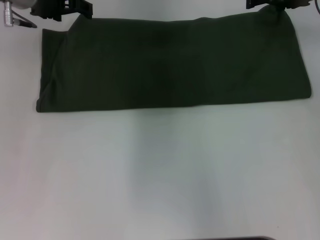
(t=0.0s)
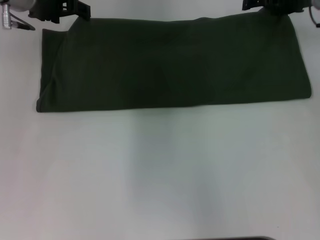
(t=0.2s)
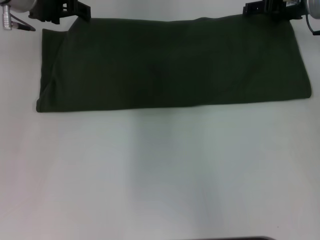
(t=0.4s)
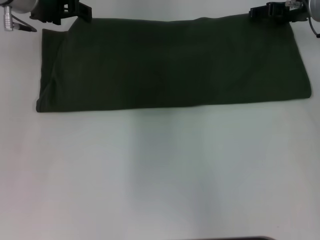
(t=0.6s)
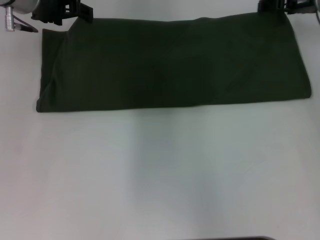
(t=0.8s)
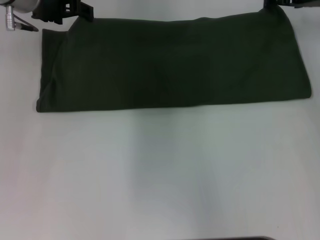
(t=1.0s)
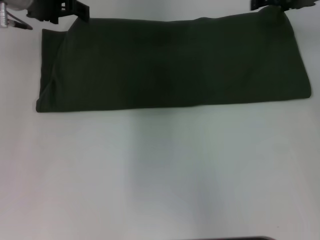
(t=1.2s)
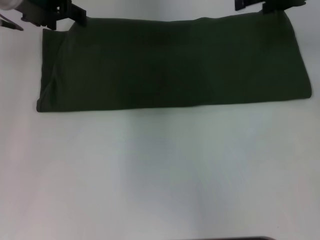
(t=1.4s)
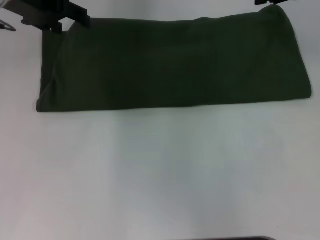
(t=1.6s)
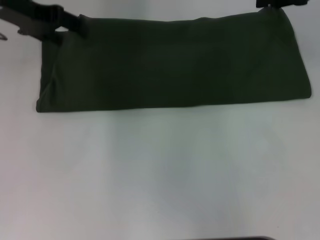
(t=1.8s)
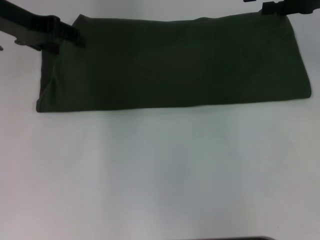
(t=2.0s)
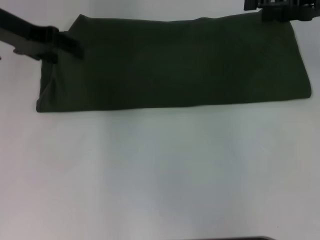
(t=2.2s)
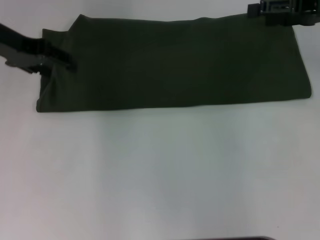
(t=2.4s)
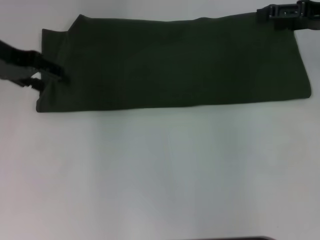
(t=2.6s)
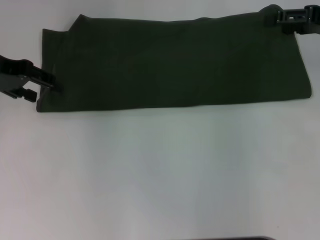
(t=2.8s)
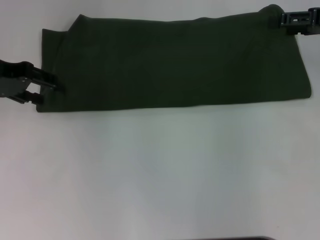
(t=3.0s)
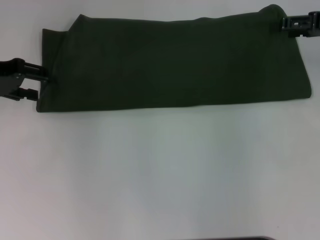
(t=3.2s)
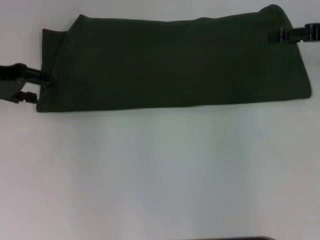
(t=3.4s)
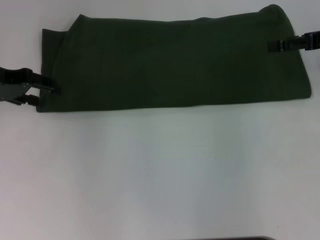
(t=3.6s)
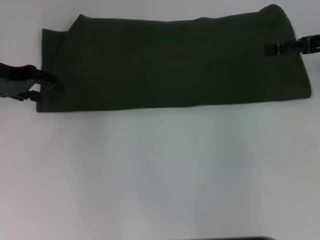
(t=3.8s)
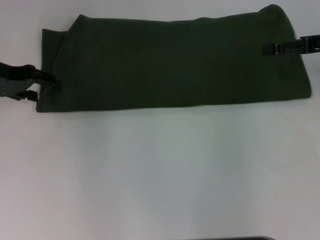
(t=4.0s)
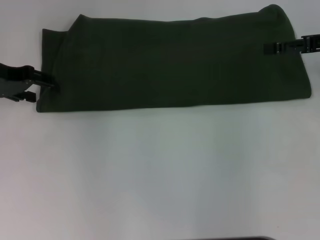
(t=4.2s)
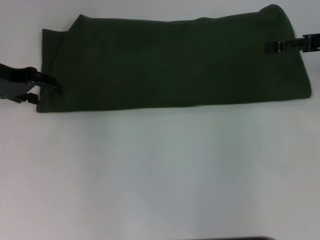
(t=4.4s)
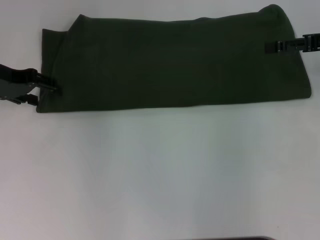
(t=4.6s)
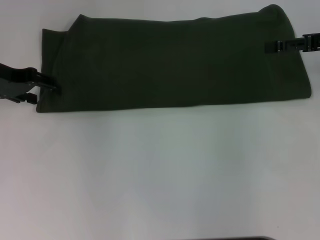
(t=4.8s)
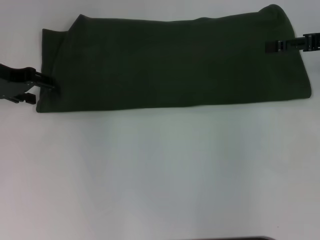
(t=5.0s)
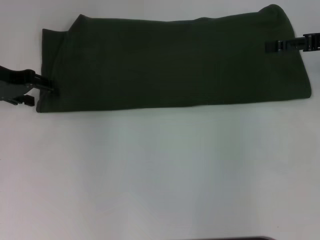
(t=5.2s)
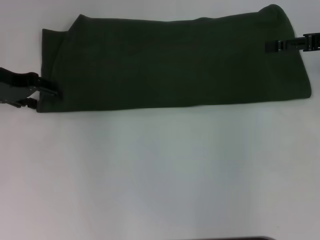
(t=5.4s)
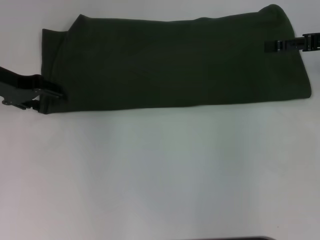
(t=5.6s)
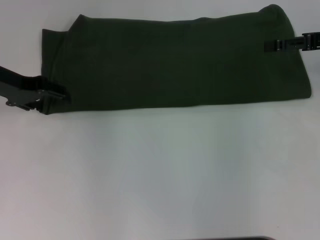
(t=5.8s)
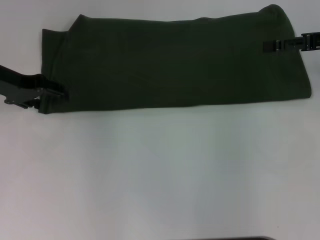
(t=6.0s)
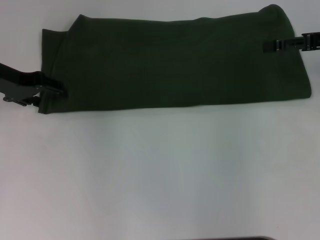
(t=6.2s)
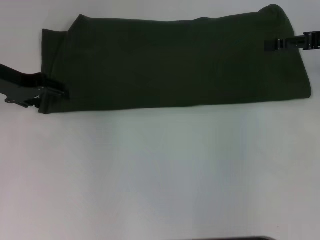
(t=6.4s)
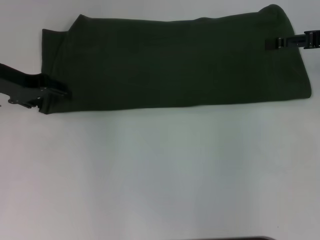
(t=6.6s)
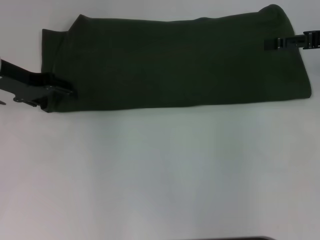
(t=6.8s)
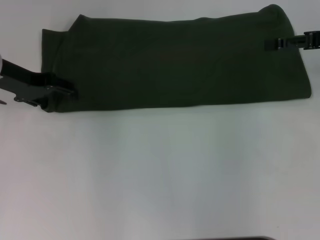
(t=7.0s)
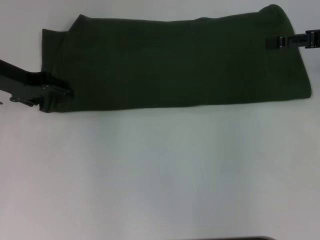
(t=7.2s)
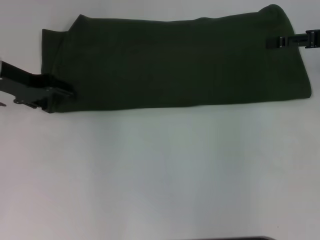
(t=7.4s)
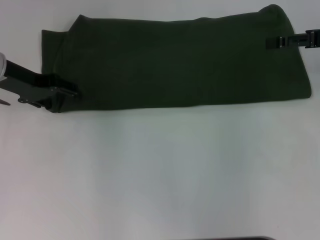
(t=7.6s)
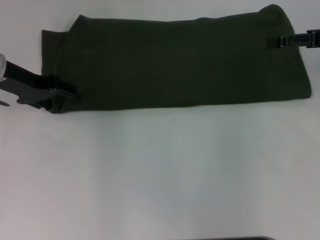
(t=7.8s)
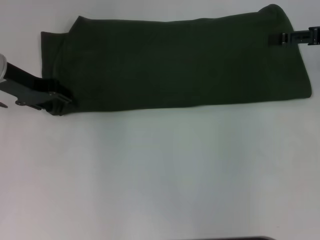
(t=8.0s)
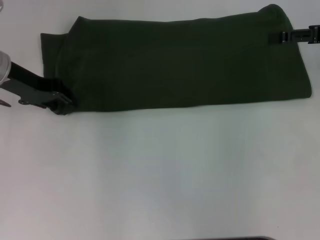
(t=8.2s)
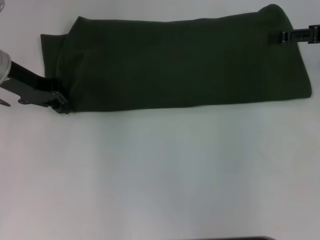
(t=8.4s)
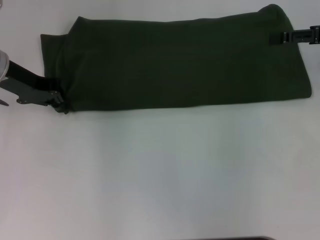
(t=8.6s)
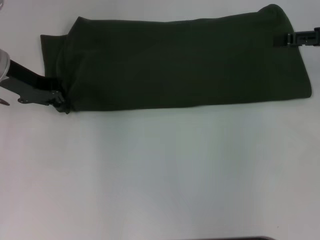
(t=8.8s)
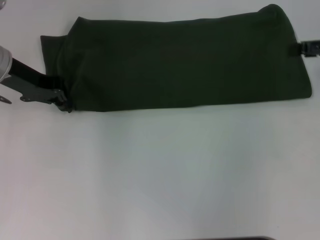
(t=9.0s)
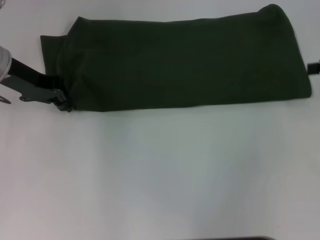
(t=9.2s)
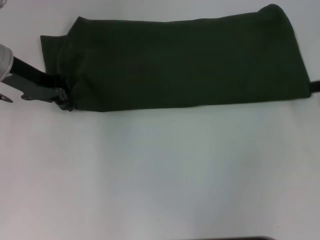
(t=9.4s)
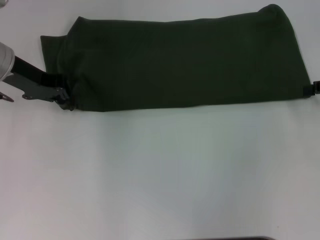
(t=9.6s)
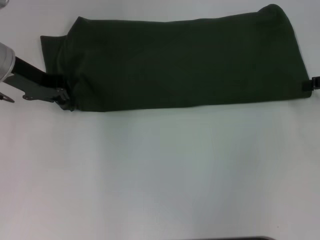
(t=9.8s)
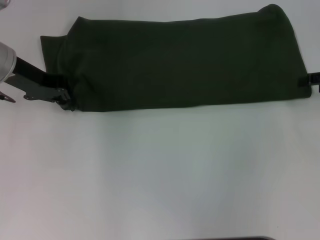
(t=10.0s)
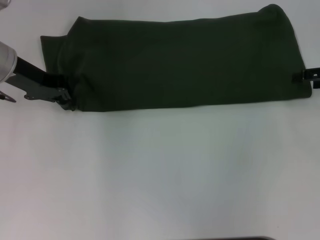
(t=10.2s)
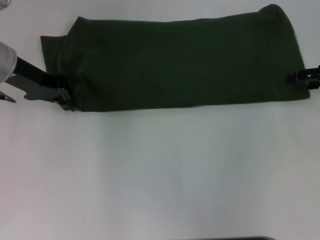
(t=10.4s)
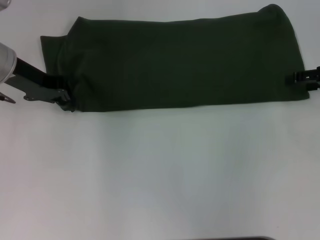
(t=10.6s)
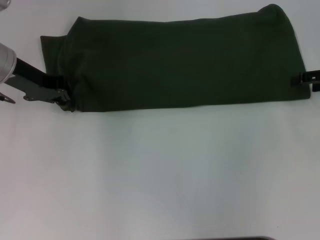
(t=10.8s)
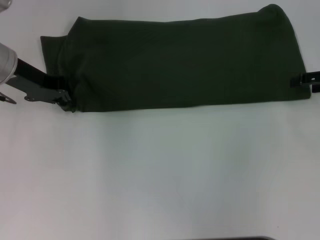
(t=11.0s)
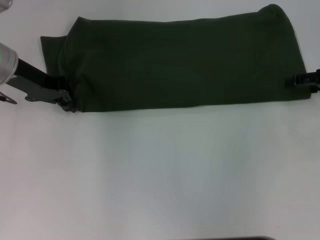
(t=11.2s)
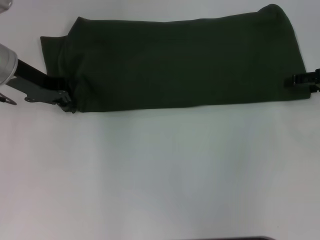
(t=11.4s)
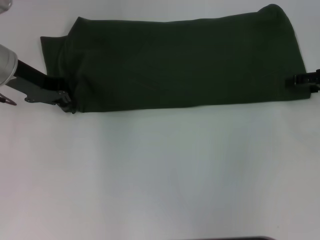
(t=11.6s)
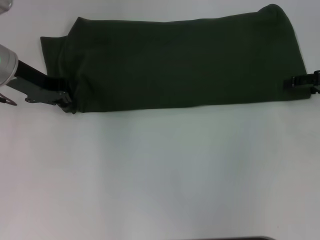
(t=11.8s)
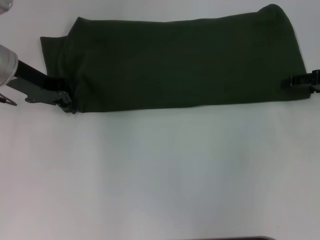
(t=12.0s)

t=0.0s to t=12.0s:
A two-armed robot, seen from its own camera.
t=0.0s to t=1.6s: The right gripper goes roughly 5 cm upward.
t=1.6s to t=3.0s: The right gripper goes some 5 cm to the right, while the left gripper is displaced to the left and backward by approximately 10 cm.
t=3.0s to t=7.6s: The grippers stay close to where they were, moving slightly.
t=7.6s to t=9.0s: The left gripper closes its fingers.
t=9.0s to t=10.4s: There are only small adjustments of the grippers.
t=10.4s to t=12.0s: The two grippers keep their place.

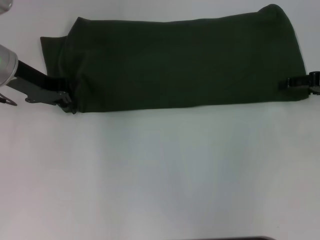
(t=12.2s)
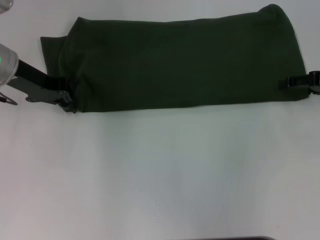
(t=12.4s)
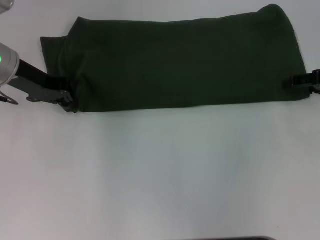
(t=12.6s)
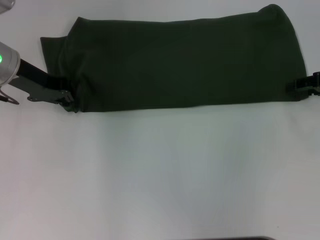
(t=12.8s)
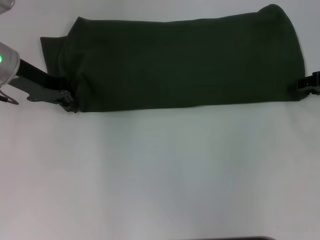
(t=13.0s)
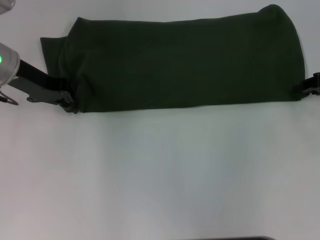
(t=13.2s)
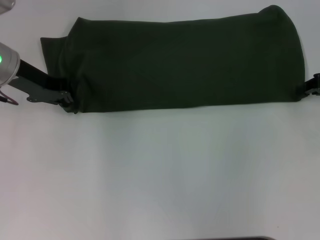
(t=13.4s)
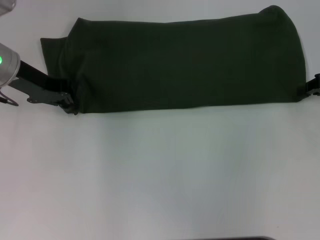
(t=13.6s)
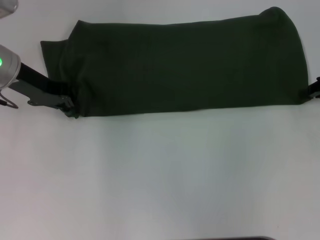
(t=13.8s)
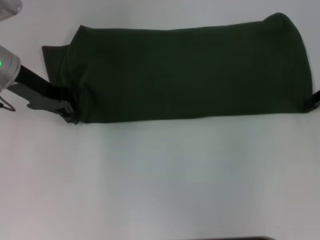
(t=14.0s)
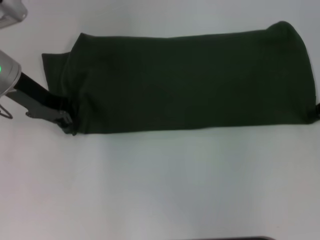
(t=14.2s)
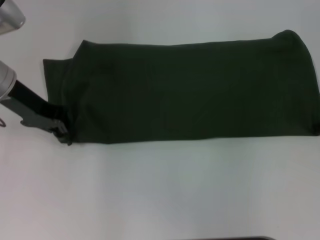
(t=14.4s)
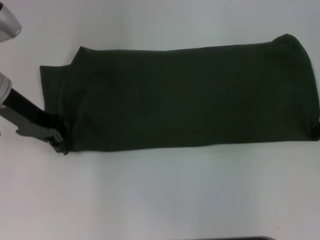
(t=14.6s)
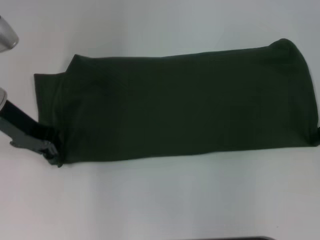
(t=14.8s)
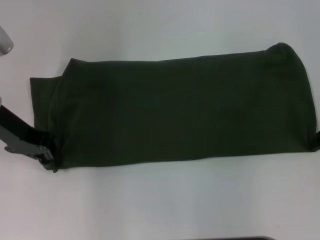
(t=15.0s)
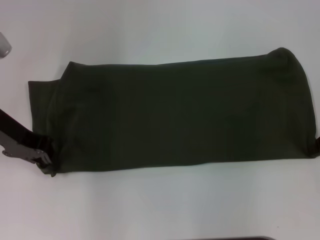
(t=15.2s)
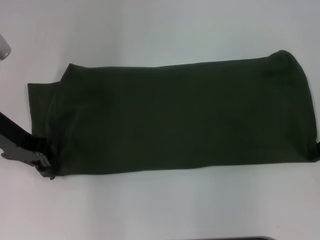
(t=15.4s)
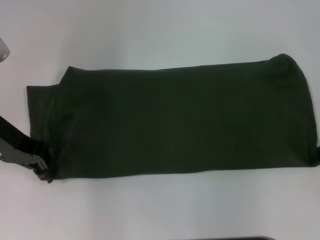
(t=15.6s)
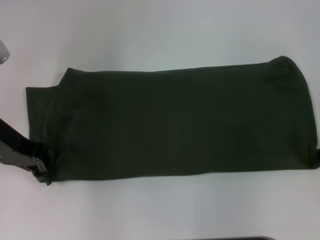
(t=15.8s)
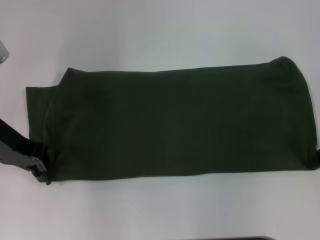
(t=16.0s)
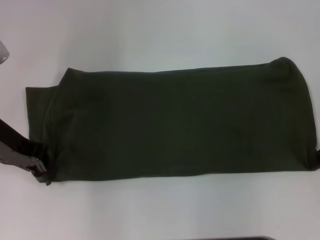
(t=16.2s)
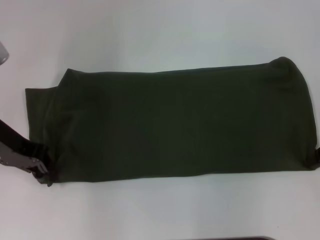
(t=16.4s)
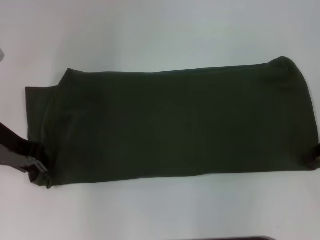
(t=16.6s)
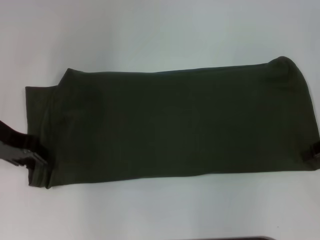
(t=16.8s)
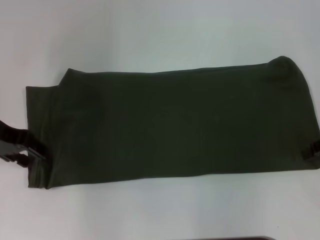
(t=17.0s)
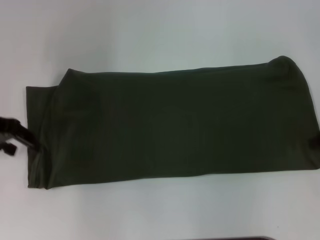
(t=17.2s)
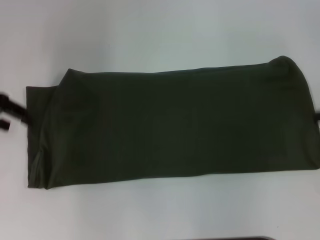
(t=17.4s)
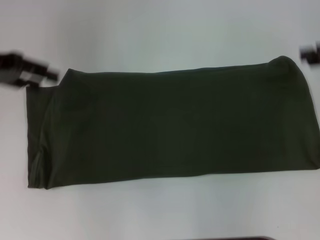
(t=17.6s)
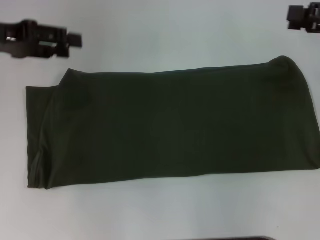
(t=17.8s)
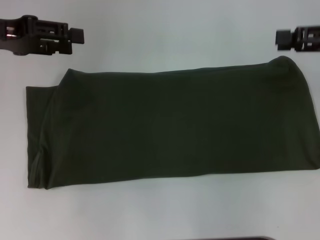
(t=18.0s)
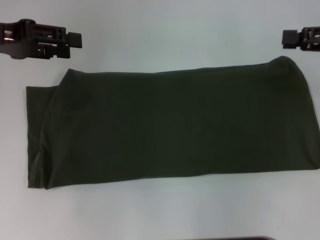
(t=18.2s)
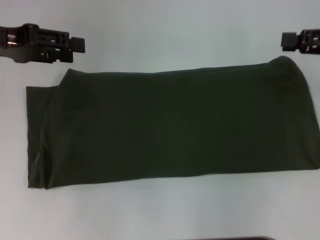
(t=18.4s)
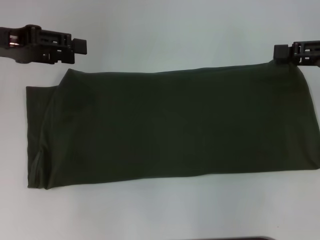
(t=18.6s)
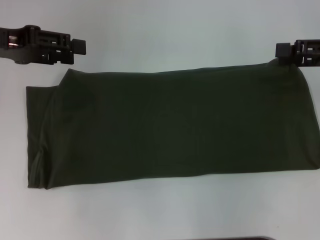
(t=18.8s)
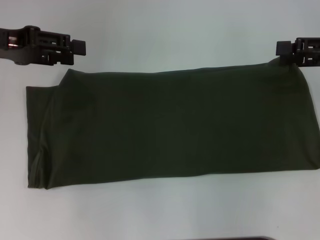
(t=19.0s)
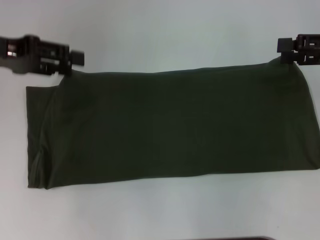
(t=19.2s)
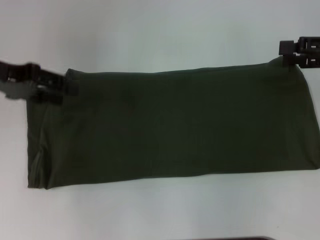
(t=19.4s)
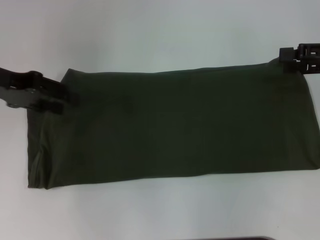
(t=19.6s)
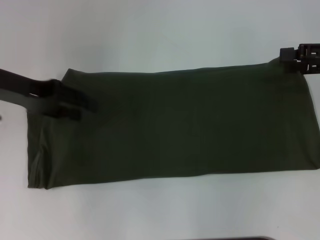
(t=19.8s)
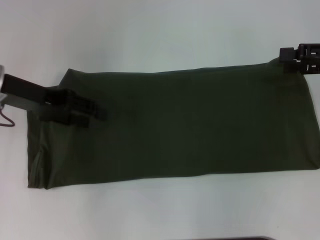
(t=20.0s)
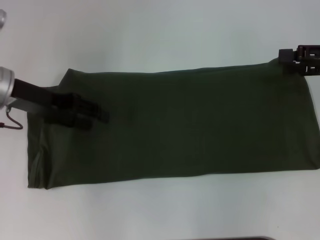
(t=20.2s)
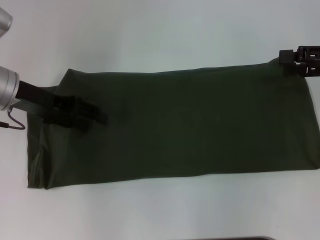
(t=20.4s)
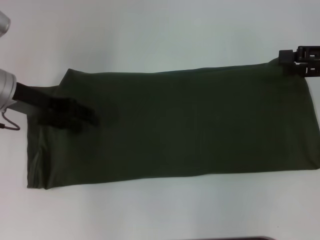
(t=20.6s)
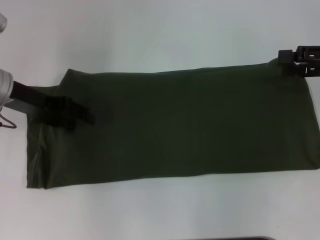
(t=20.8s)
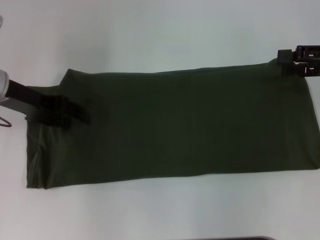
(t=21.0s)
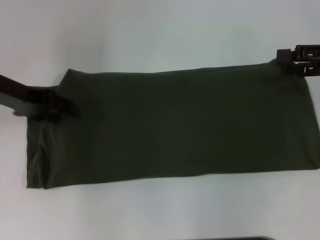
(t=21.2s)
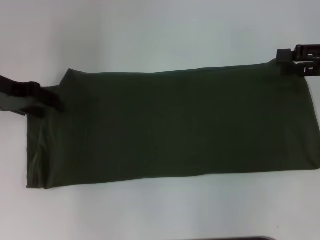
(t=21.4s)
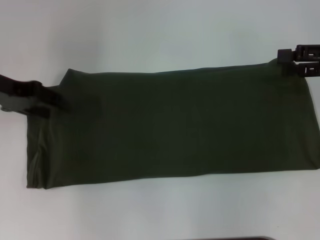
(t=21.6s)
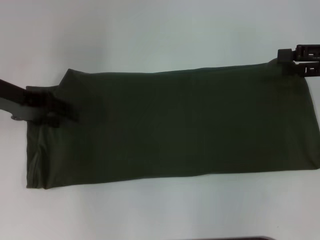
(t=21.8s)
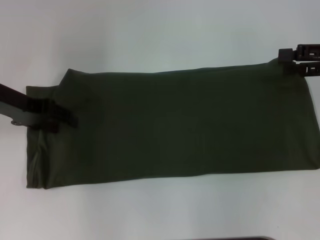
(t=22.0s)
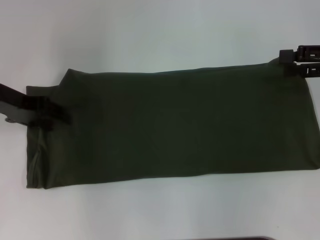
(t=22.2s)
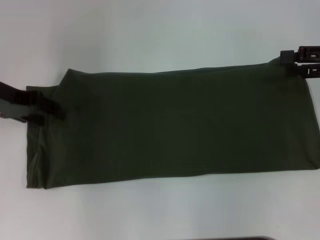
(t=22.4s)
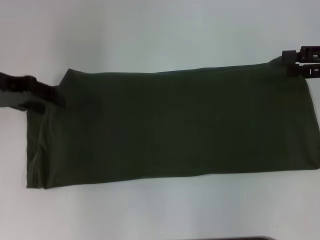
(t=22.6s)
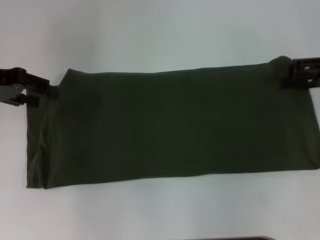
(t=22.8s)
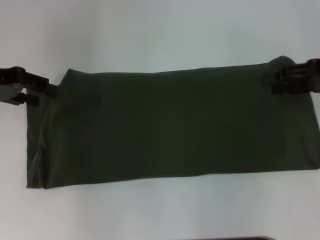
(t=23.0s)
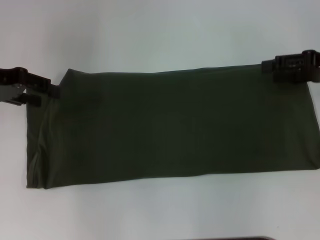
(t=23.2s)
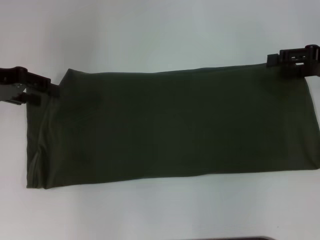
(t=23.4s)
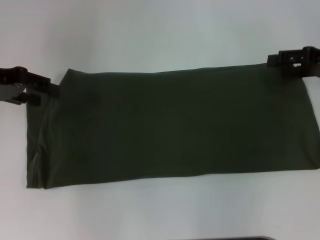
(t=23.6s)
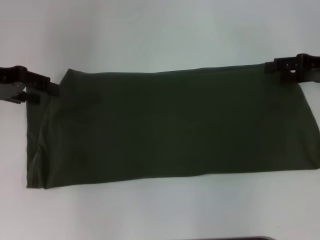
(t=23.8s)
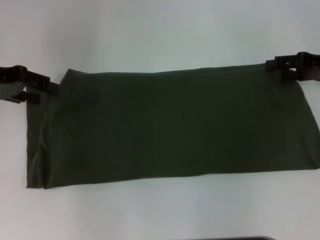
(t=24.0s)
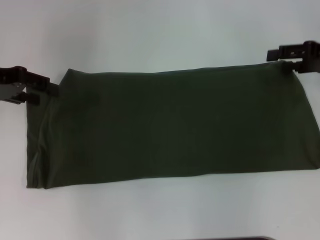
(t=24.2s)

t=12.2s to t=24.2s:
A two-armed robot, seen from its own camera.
Step, t=12.2s to t=16.8s: Pull the clothes with your left hand.
Step, t=12.2s to t=16.8s: Pull the clothes with your right hand.
t=12.2s to t=13.8s: The right gripper closes.
t=13.8s to t=15.2s: The left gripper is displaced backward by about 5 cm.
t=15.2s to t=16.6s: Both grippers stay put.
t=16.6s to t=18.2s: Both grippers travel together upward, some 5 cm. The left gripper opens its fingers. The right gripper opens.
t=18.2s to t=19.8s: The grippers make only small movements.
t=19.8s to t=21.2s: The grippers make only small movements.
t=21.2s to t=22.6s: The grippers stay close to where they were, moving slightly.
